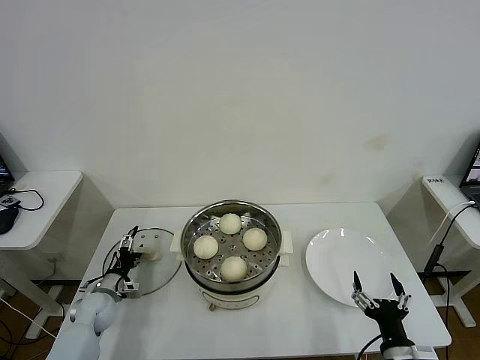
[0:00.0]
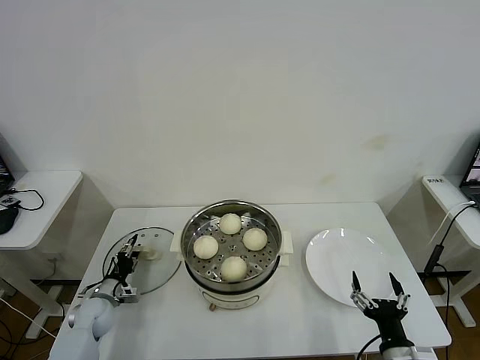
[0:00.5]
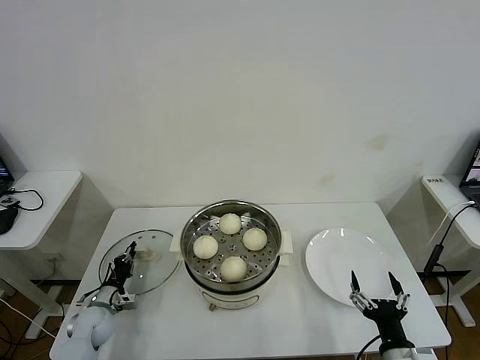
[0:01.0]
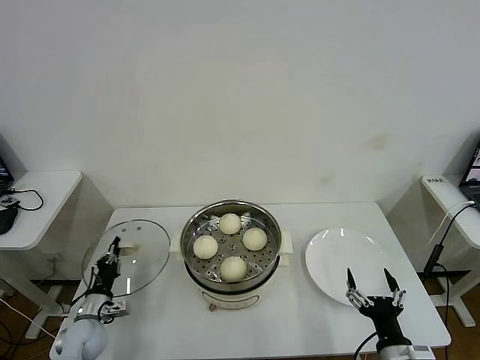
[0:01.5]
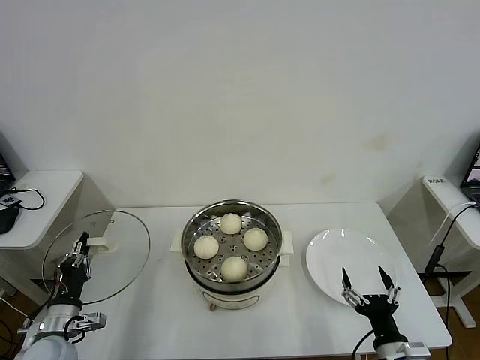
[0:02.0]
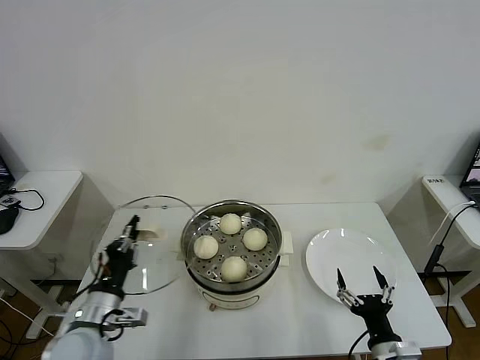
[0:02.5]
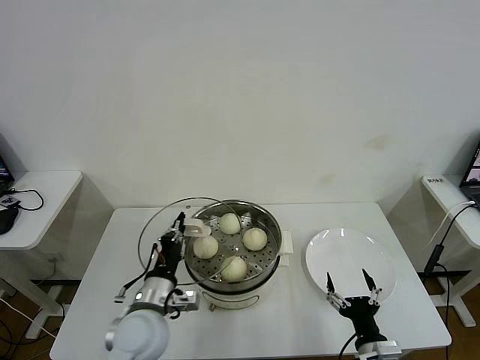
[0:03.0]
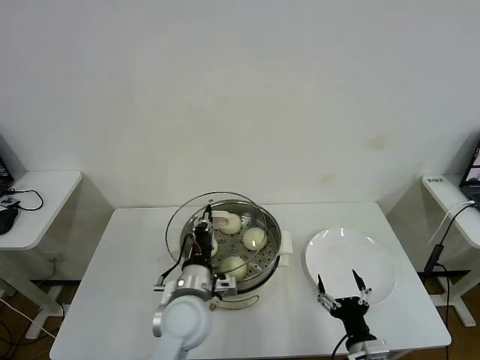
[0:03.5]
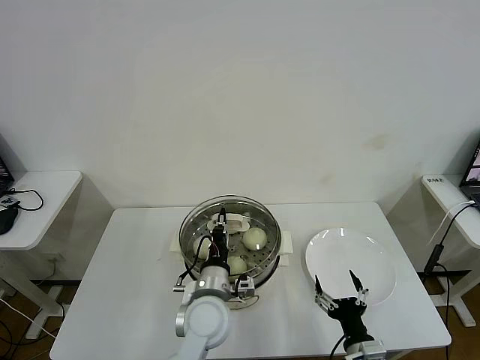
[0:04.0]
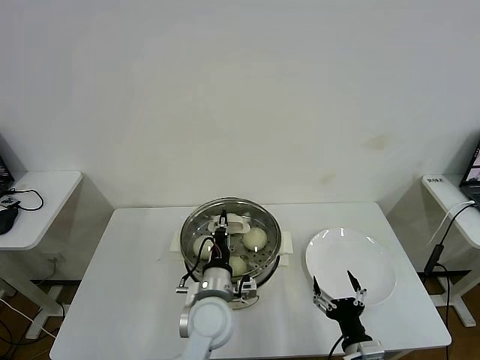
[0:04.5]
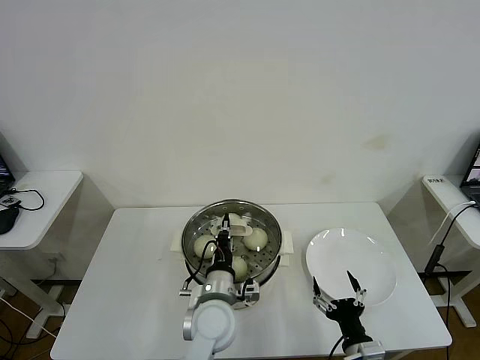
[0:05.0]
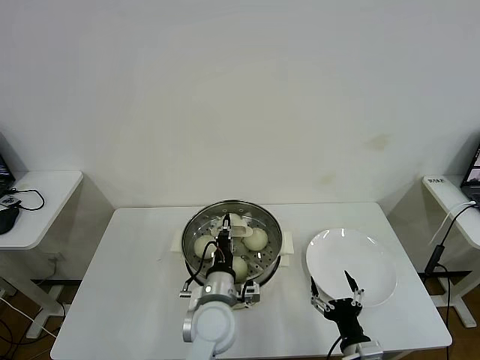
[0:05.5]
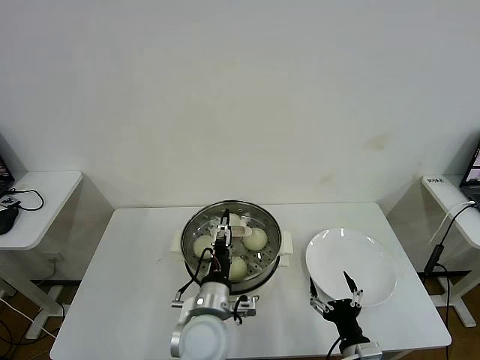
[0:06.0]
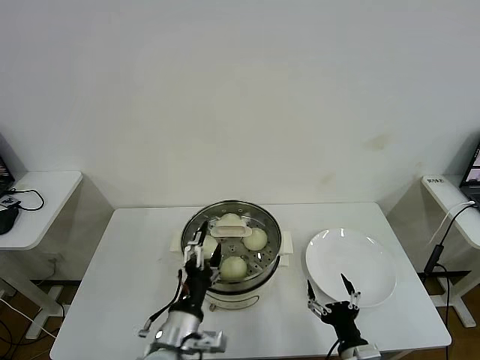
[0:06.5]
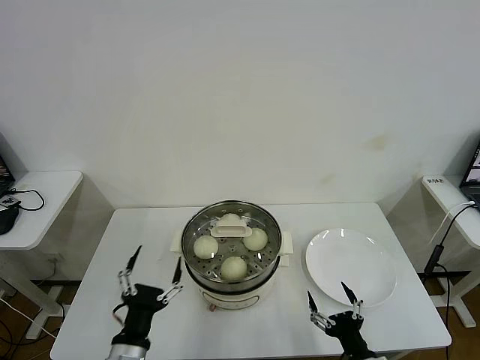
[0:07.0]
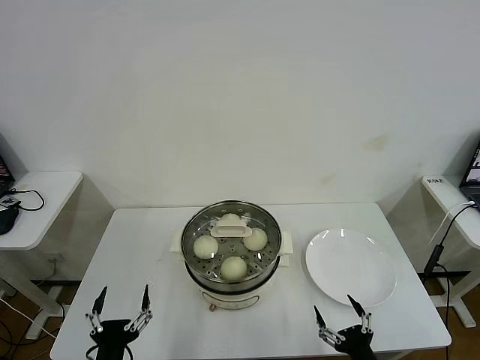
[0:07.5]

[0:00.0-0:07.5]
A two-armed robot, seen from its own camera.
Task of the whole recording: take steamed baozi put them in steamer then cover it.
Step, 0:01.5 to 0:06.0: Place the pot lid on the steamer with left gripper.
0:00.0 to 0:02.0: The left gripper is displaced backward and upward by roughly 15 cm, and closes up.
0:02.0 to 0:04.0: The right gripper ends up roughly 5 cm from where it was; the left gripper travels to the right by roughly 30 cm.
0:04.0 to 0:05.5: The grippers move only a little.
0:05.5 to 0:07.5: The left gripper moves backward and to the left, about 25 cm, and opens. The right gripper travels backward by approximately 5 cm.
